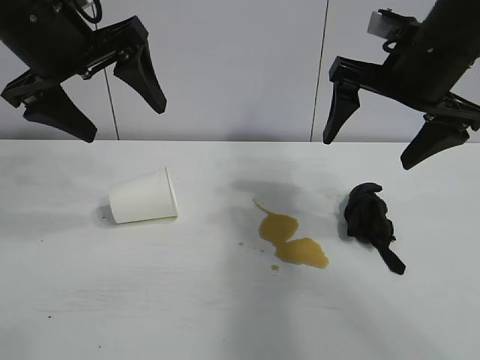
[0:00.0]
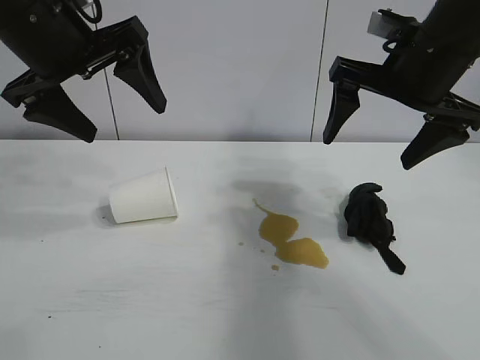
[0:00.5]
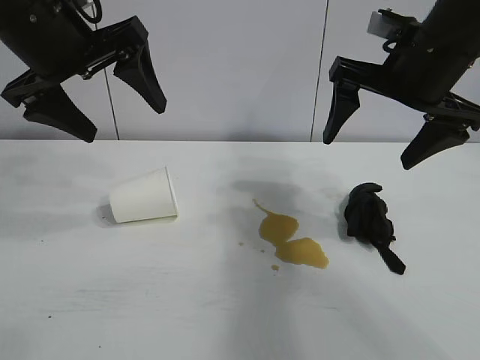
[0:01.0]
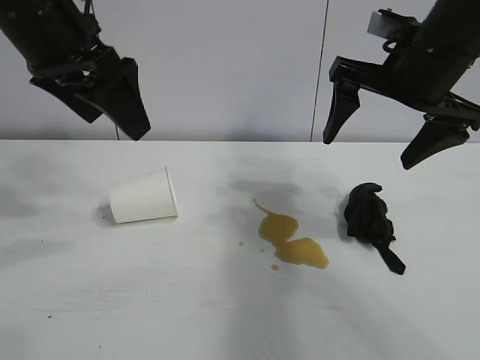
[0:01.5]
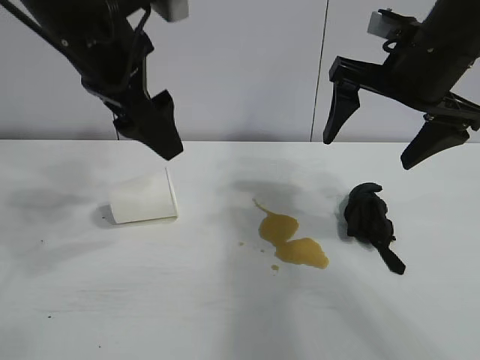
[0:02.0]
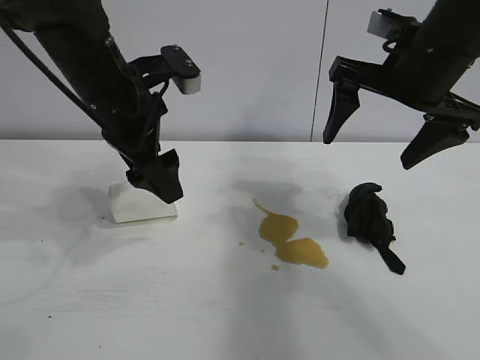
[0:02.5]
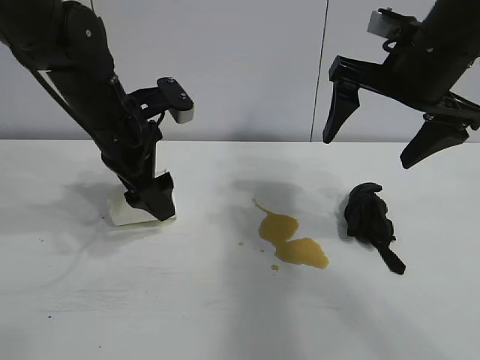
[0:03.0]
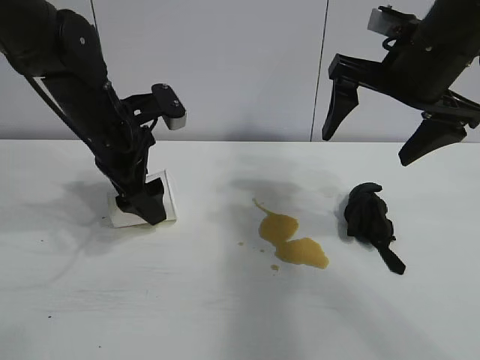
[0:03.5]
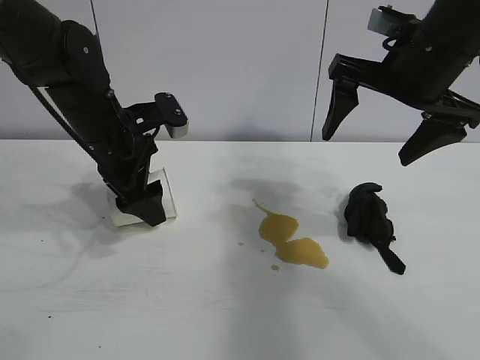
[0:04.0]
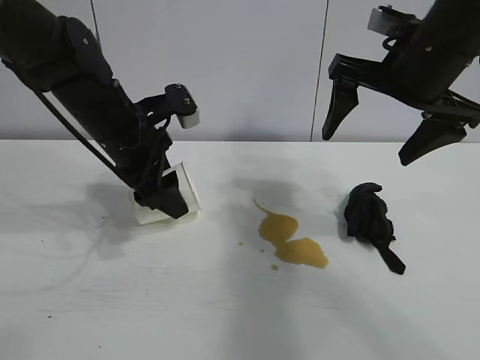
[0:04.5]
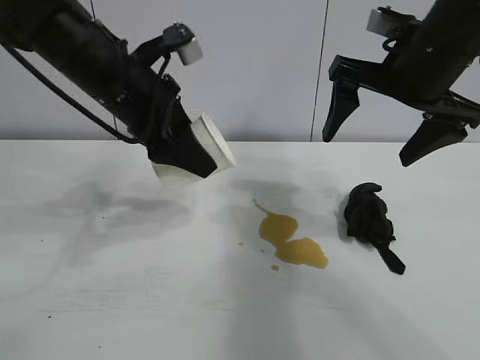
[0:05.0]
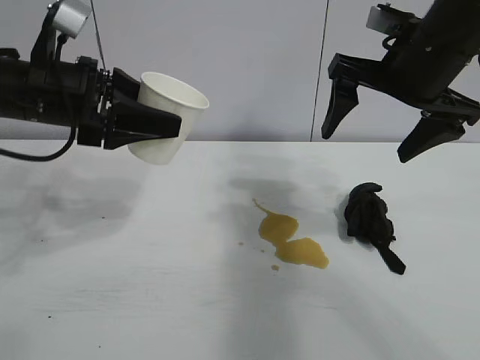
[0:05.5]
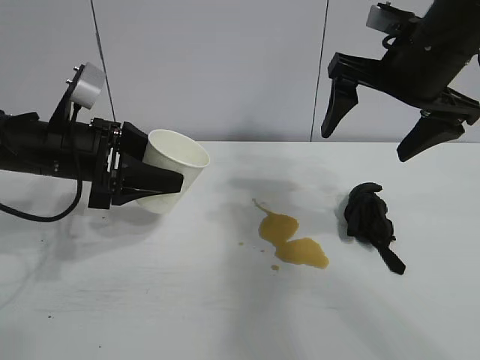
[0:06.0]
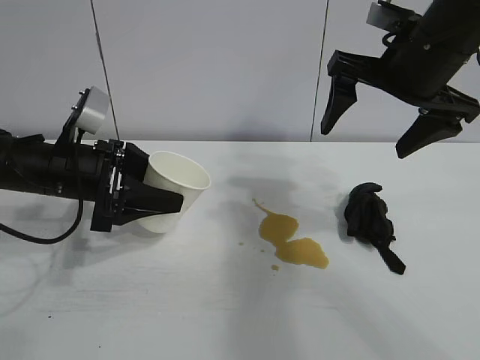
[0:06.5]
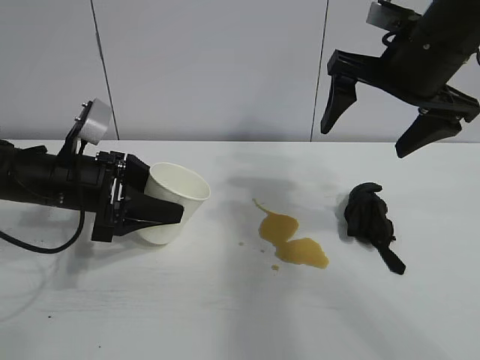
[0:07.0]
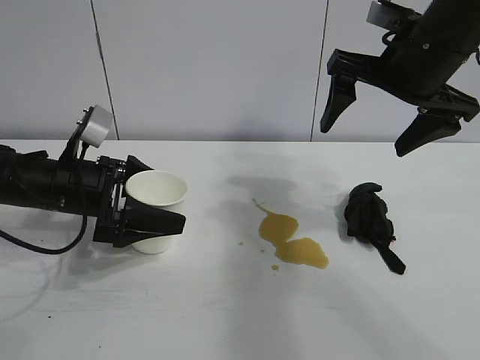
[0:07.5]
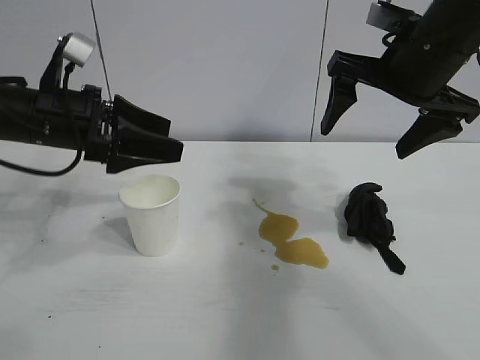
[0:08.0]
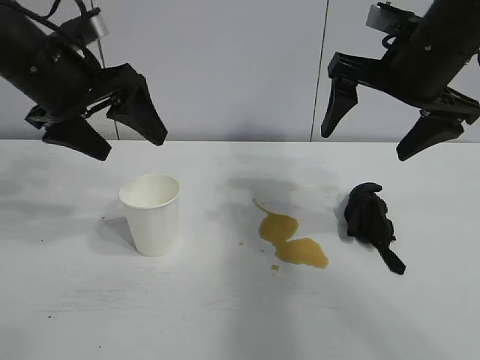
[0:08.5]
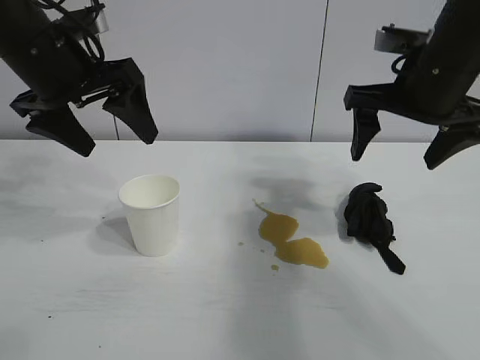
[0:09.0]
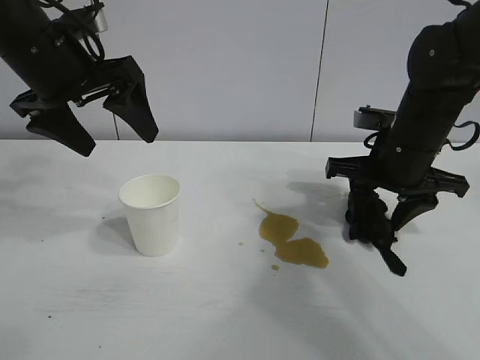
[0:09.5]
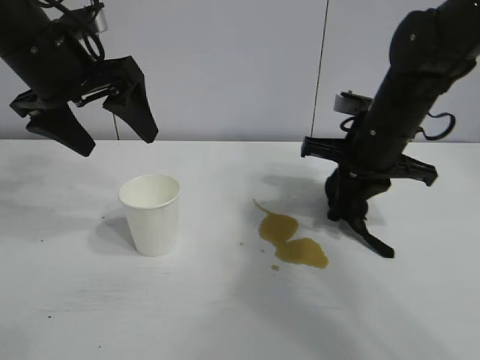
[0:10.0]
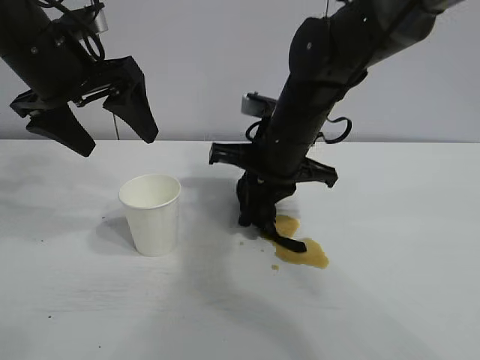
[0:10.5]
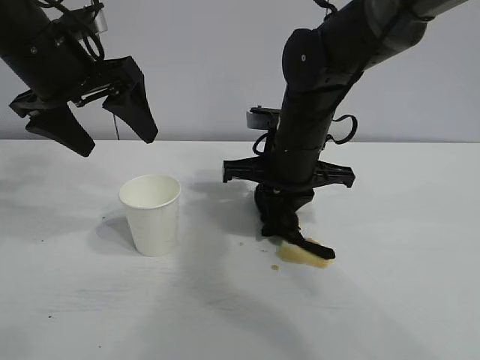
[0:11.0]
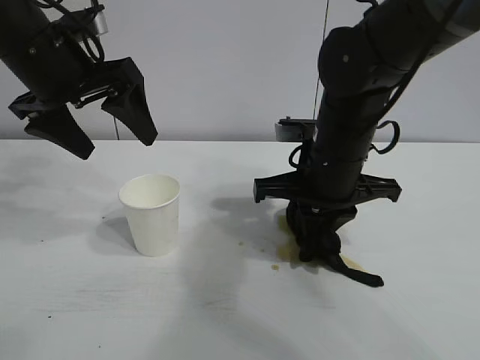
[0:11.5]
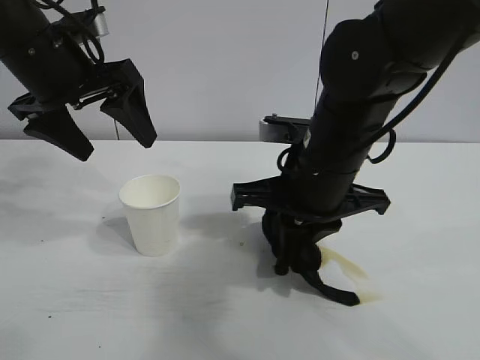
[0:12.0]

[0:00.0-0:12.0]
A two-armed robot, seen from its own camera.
Task of the whole recording: the left gripper pick up the fallen cup and place it upright, the right gripper grasp the black rag and wipe the stain on the table, the right gripper put the black rag back in its original position.
Step, 0:01.5 to 0:04.0: Grasp the paper cup with left gripper.
Step, 0:04.5 to 0:07.5: Stand the paper cup upright with left gripper.
Step, 0:08.0 to 0:09.5: Grasp the rag with right gripper.

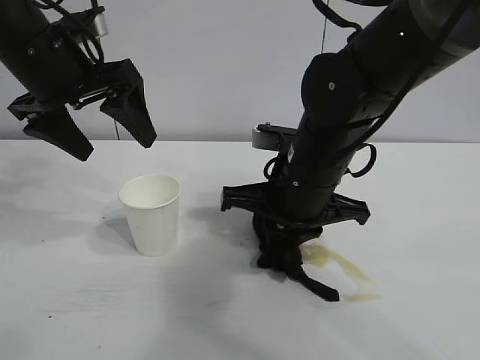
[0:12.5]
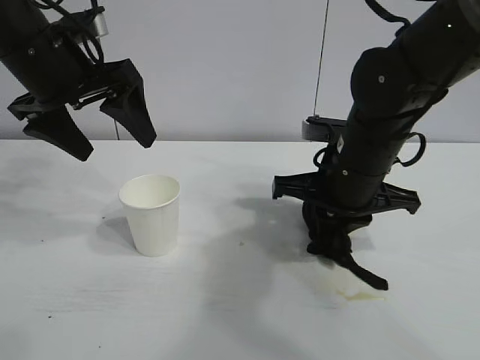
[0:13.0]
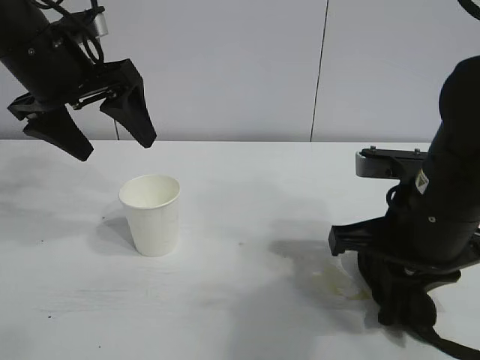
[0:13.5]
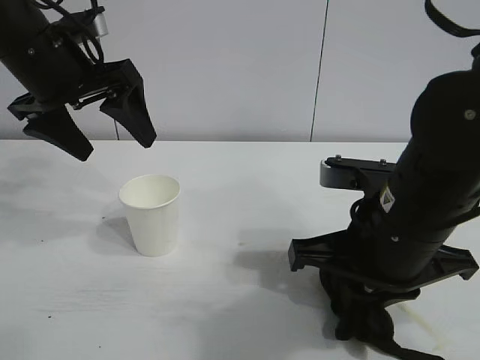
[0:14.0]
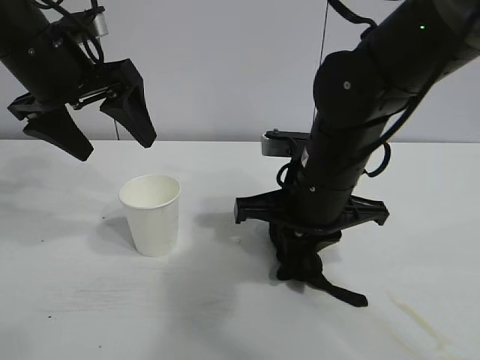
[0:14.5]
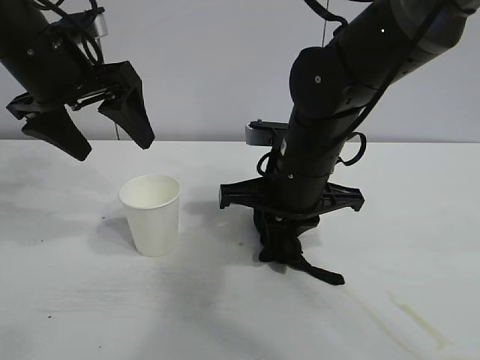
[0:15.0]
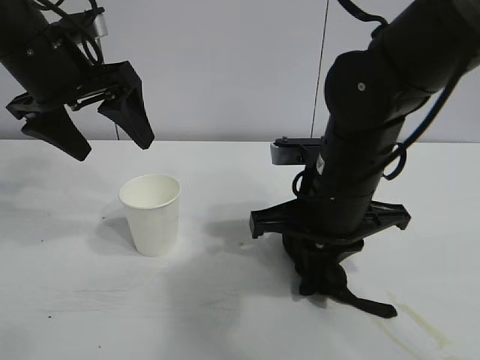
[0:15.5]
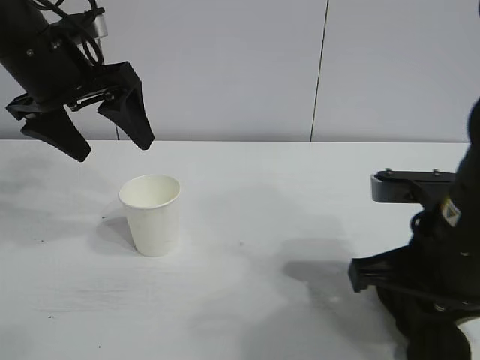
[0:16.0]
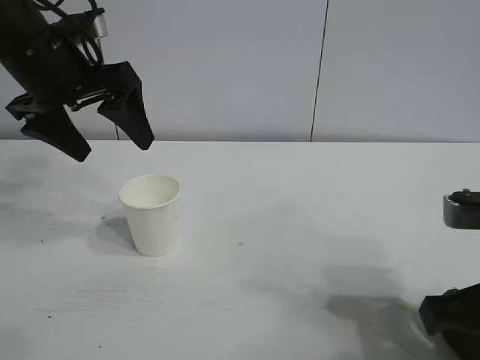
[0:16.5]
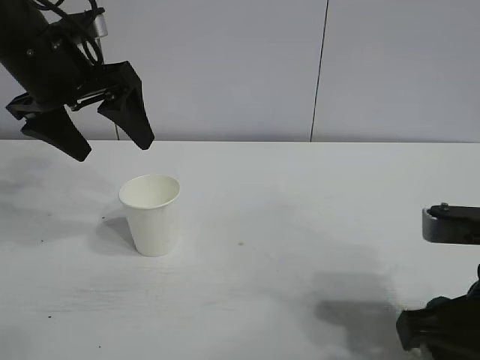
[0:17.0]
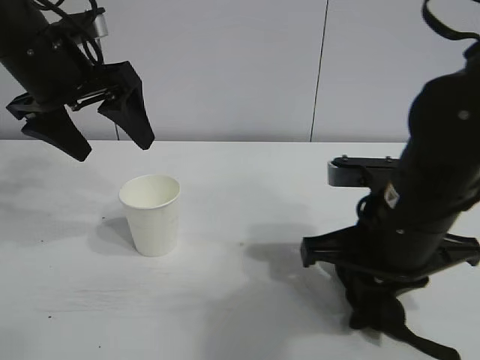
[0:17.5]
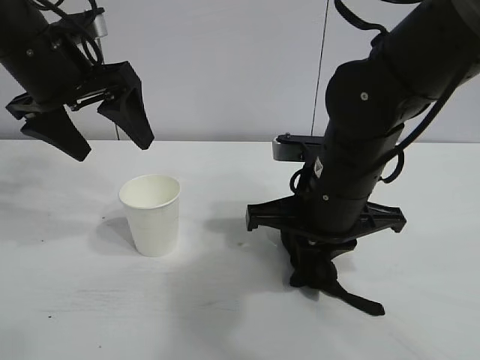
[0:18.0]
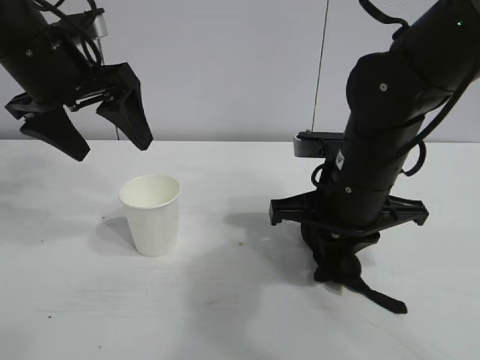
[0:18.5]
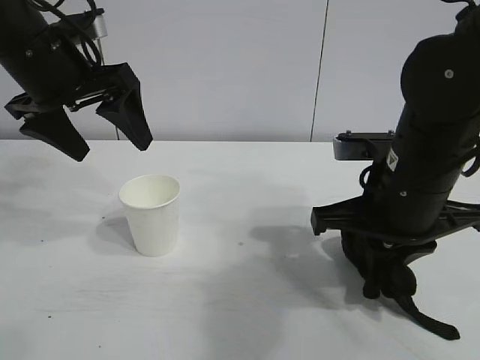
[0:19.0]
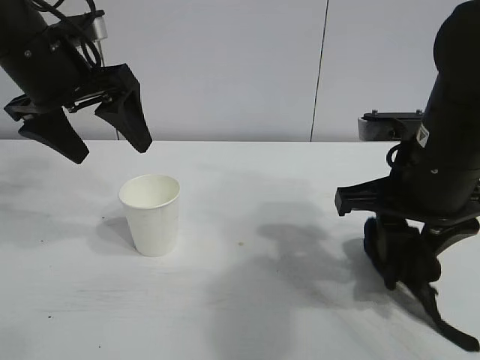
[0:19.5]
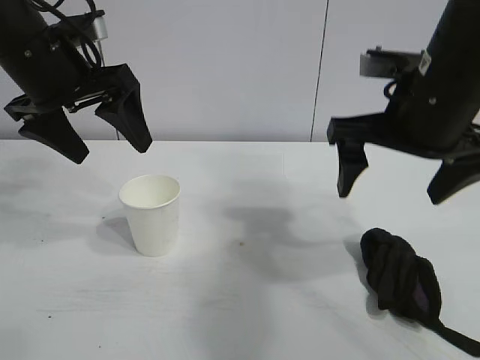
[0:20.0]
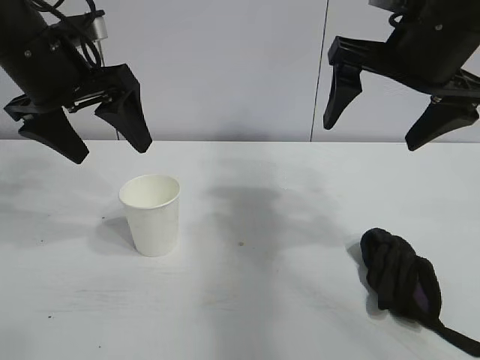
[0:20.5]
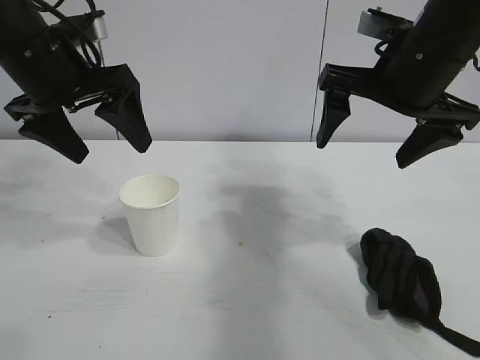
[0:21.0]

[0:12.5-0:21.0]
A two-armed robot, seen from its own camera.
Task of the whole recording: the left gripper pick up the fallen cup and place it upright, the right gripper grasp the black rag and wipe the stain on the table, the right gripper put the black rag back in its original position.
Step, 0:12.5 to 0:19.0: Wipe the stains off the table with the rag with right gripper.
